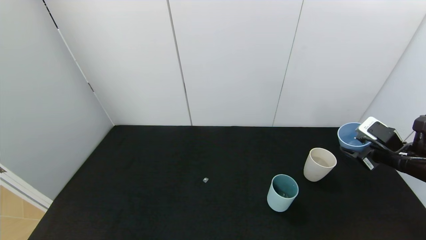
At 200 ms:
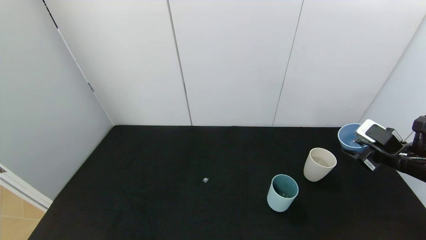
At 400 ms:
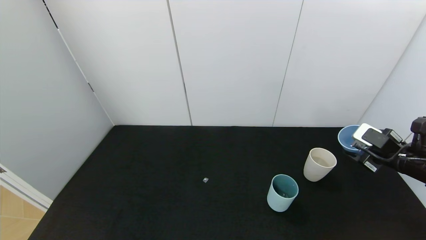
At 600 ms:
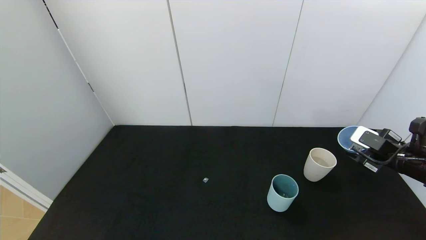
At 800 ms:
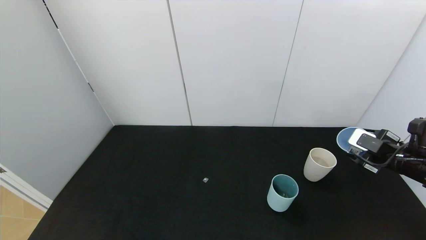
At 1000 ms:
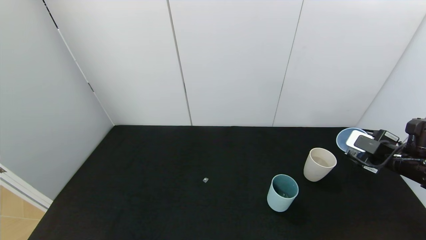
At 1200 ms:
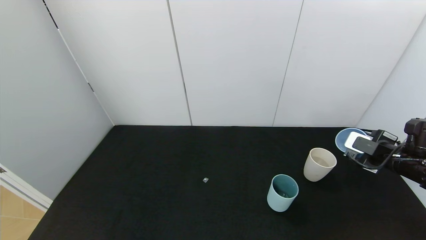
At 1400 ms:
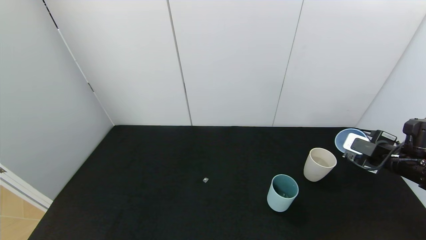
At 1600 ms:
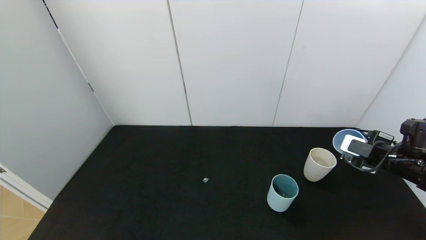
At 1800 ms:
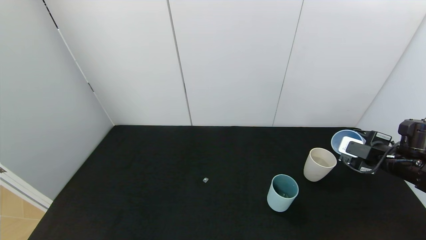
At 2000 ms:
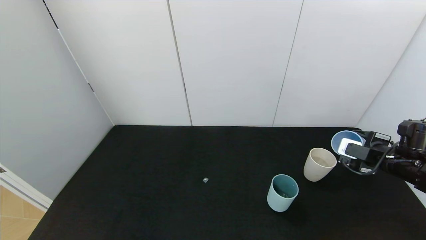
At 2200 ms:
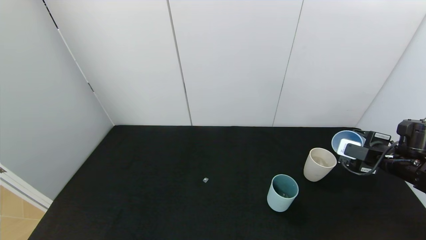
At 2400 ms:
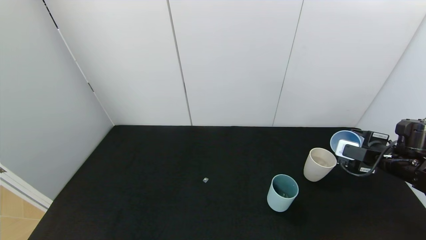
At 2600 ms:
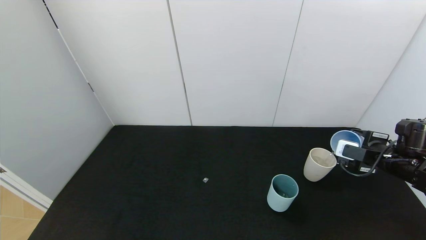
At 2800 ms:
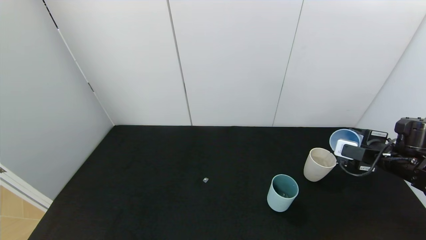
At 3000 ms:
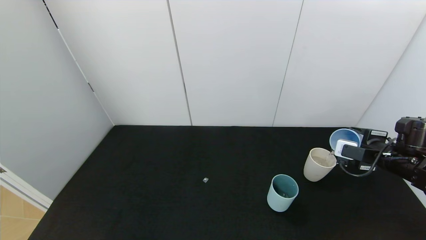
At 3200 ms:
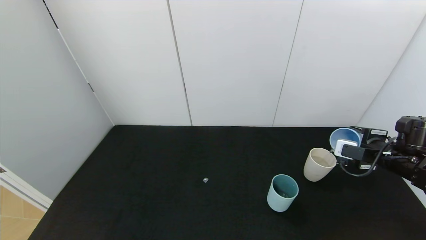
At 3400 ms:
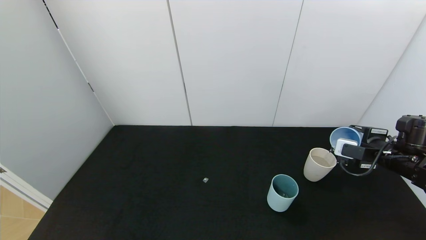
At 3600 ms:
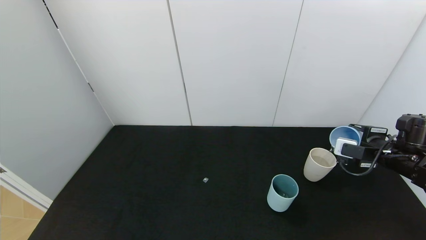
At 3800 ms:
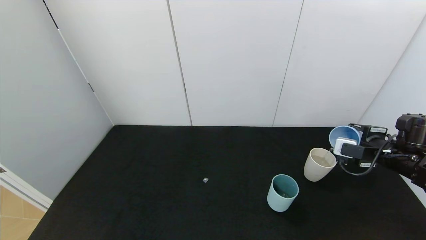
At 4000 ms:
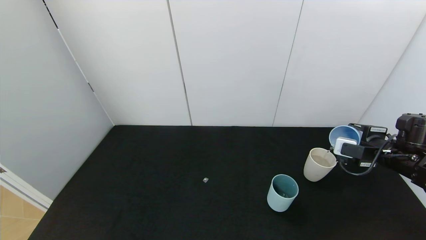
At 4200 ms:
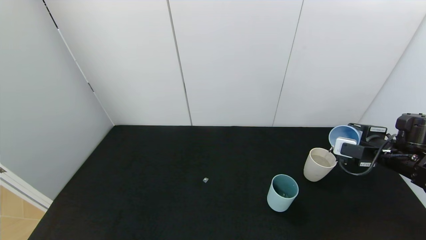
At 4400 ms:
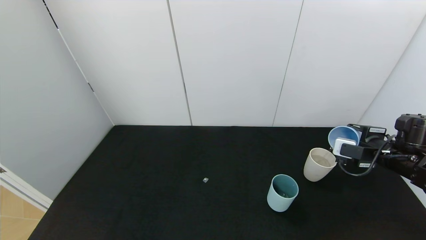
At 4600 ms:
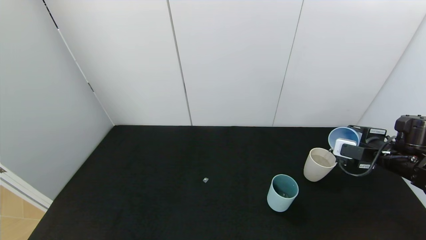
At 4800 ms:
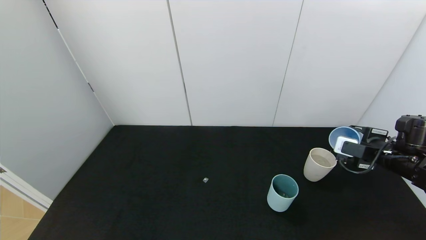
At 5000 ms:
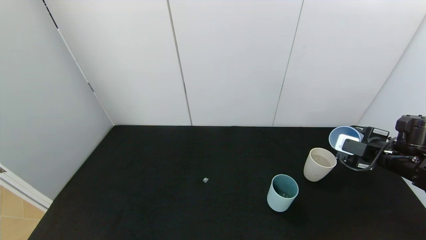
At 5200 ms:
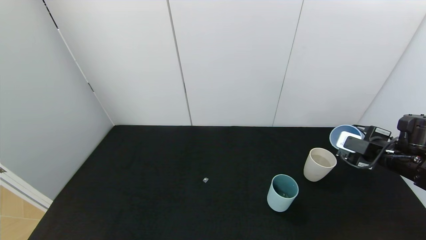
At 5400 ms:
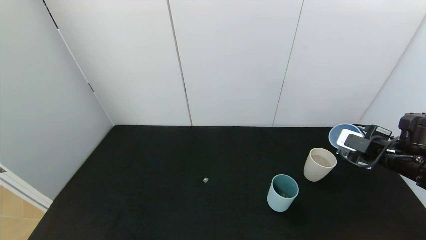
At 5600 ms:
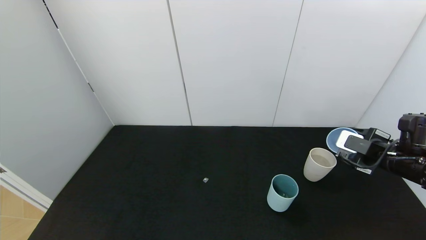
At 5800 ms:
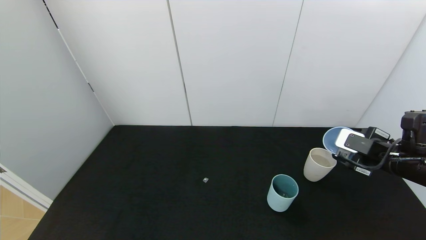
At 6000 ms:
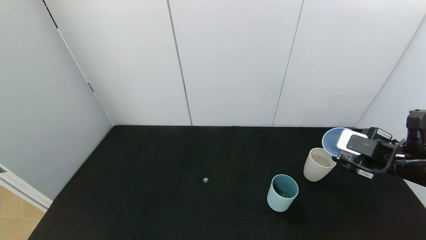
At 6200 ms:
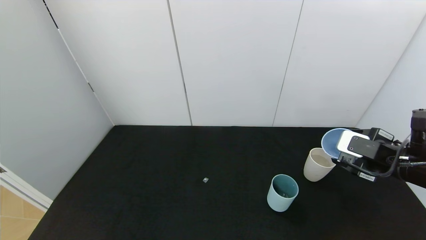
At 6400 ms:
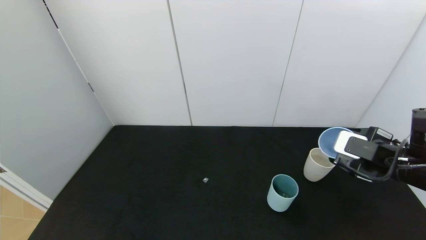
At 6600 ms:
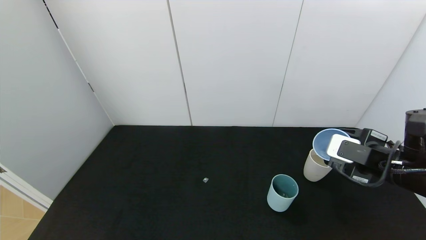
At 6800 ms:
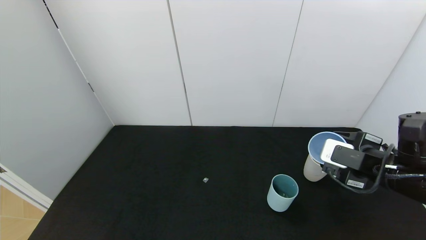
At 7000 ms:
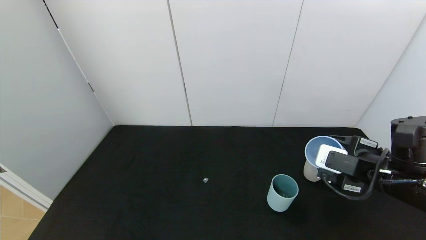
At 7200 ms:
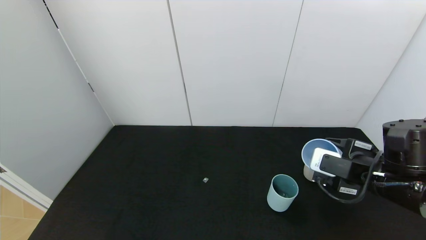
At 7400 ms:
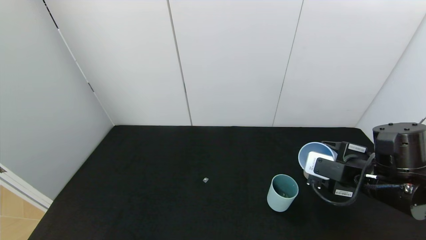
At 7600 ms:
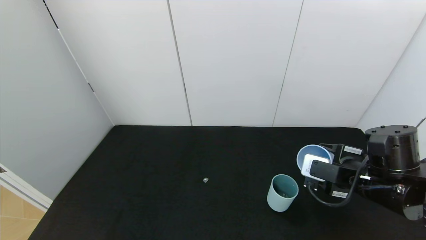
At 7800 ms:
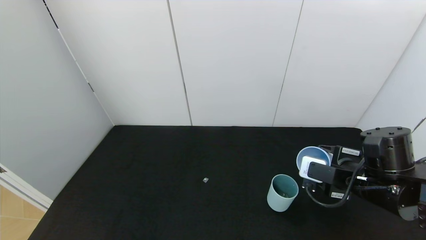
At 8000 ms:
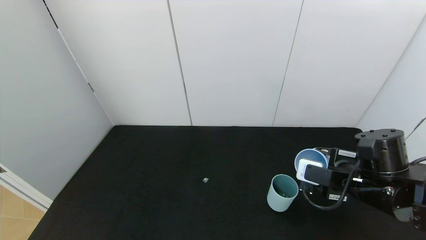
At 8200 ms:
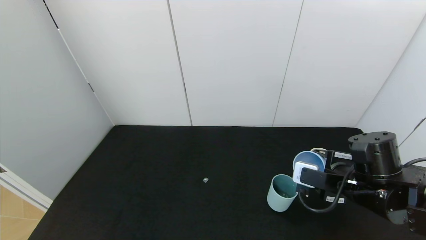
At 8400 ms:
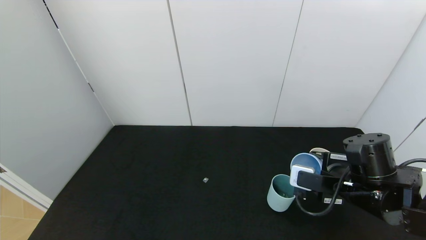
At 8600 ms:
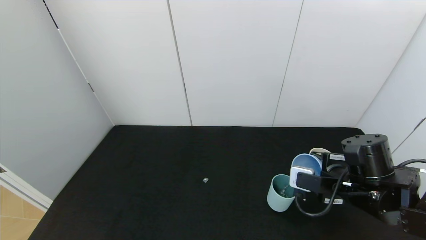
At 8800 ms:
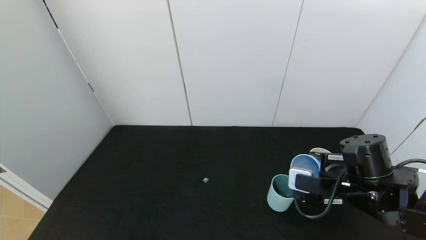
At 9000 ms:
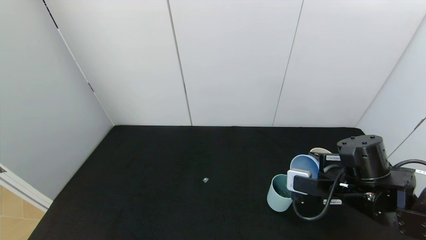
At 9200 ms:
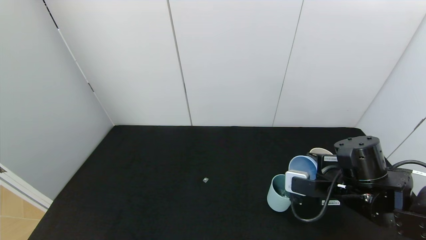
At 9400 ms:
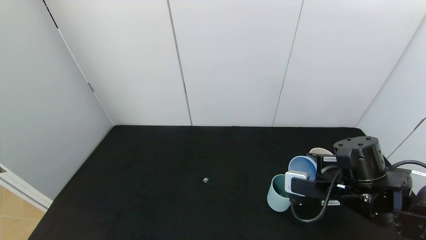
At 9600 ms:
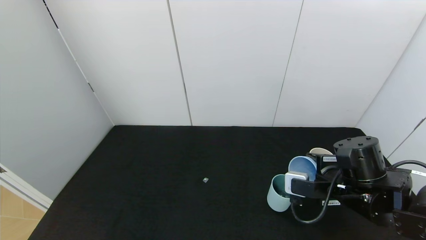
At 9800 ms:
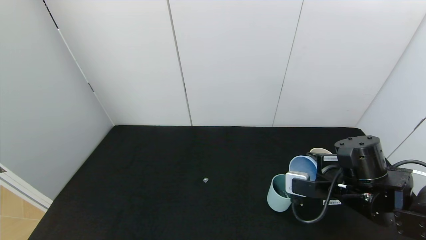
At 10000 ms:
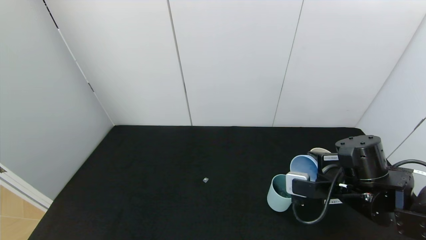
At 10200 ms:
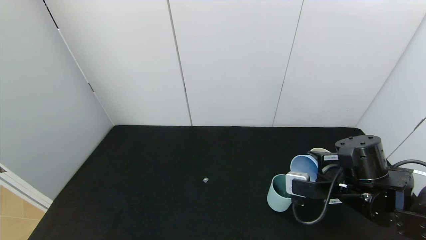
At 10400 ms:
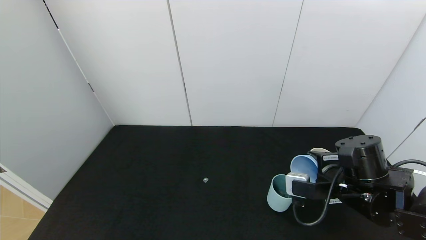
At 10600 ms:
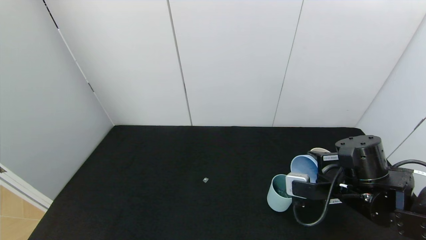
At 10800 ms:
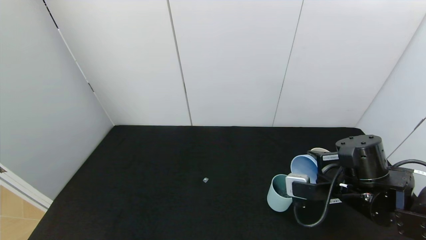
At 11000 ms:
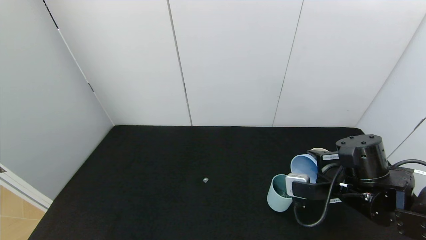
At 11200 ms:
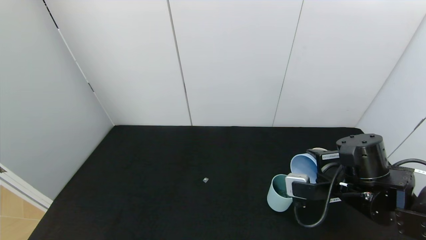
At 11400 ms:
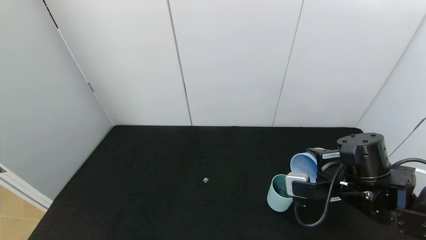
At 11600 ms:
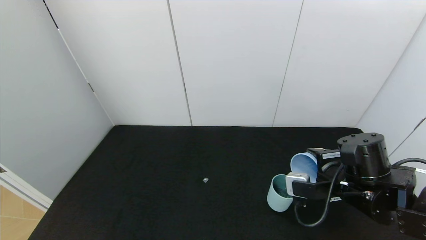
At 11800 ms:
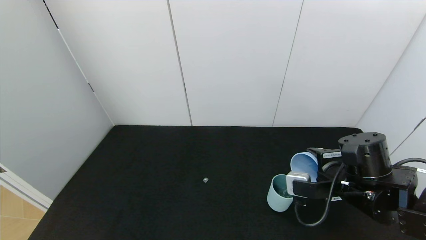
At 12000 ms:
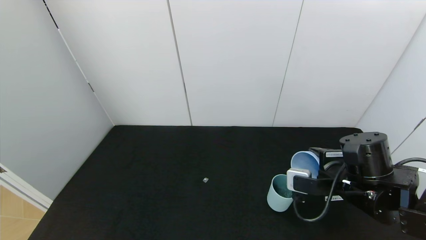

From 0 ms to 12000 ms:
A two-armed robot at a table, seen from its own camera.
Task of the whole recording: use the gripper to pour the water into the other two cups on black table.
Step, from 0 ms to 5600 ms: Pour water from blue cup to white cup with the right gripper.
From 1600 ms to 3000 ms: The grippers move only a little.
From 3000 ms to 4400 ms: The two grippers keep their place.
From 4400 ms to 6000 ms: The right gripper shifts by about 5 cm.
From 6000 ms to 7600 ms: The right gripper shifts roughly 10 cm to the left.
From 7600 ms to 10400 ms: The grippers make only small movements.
From 10400 ms to 12000 ms: Both grippers stay put.

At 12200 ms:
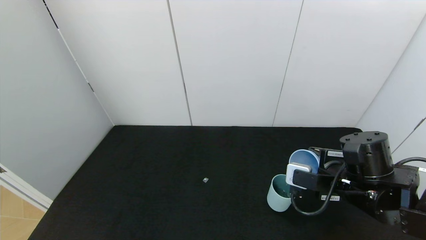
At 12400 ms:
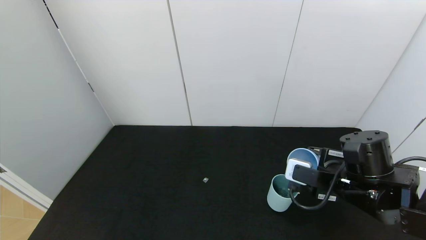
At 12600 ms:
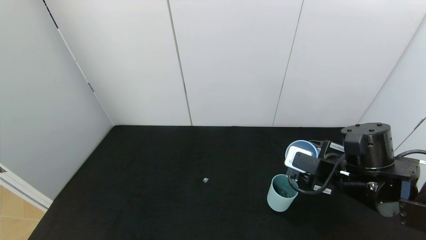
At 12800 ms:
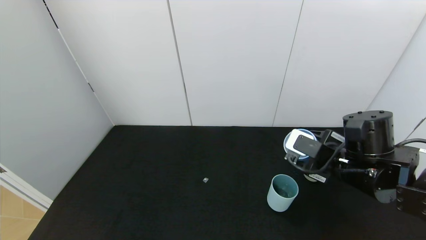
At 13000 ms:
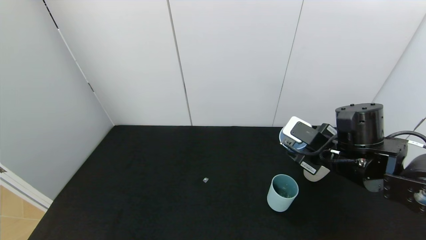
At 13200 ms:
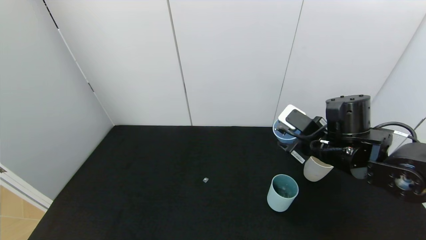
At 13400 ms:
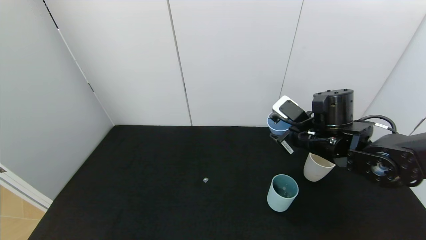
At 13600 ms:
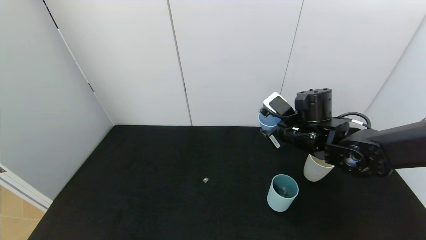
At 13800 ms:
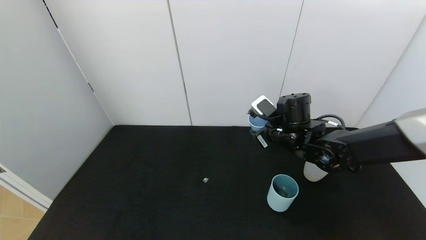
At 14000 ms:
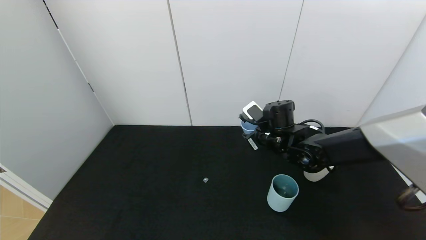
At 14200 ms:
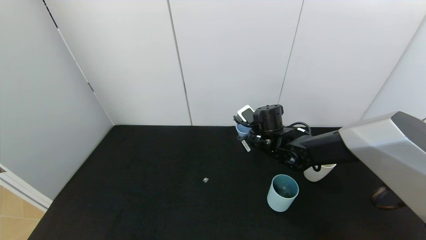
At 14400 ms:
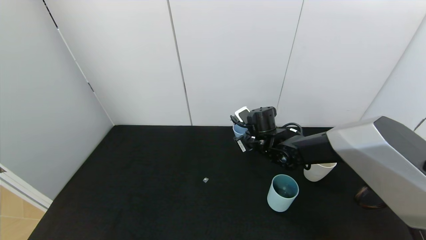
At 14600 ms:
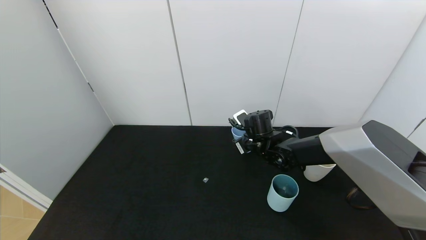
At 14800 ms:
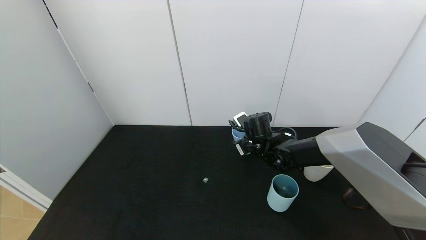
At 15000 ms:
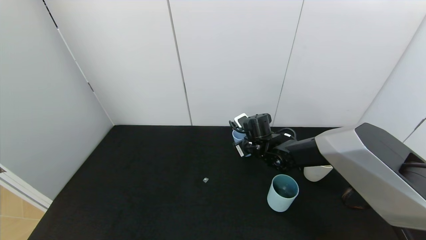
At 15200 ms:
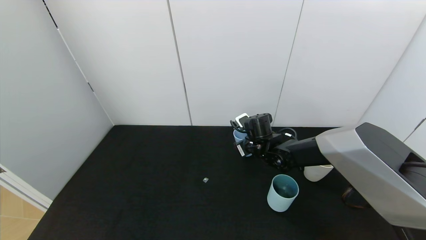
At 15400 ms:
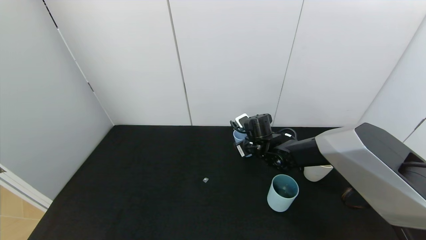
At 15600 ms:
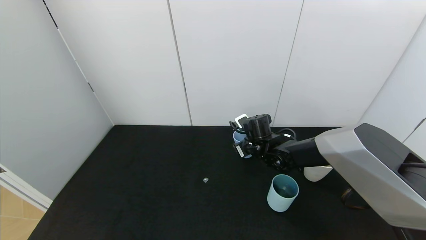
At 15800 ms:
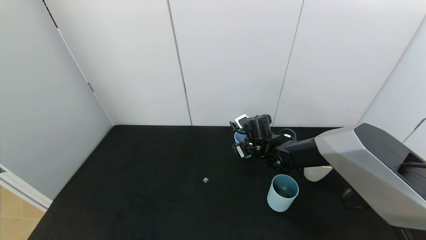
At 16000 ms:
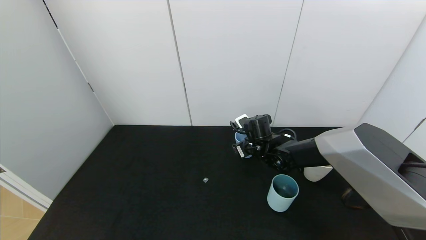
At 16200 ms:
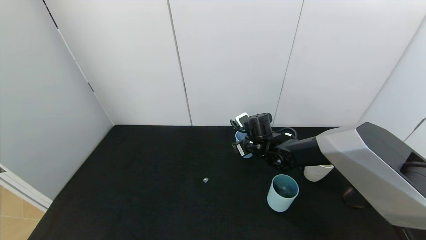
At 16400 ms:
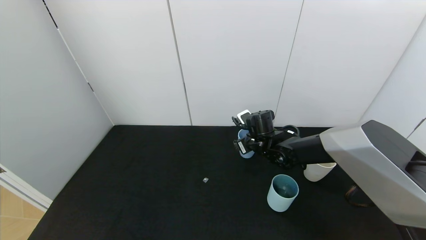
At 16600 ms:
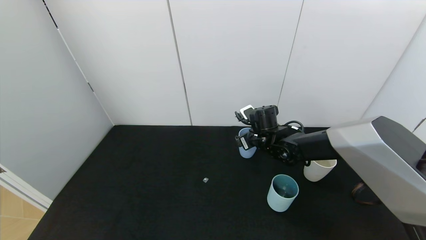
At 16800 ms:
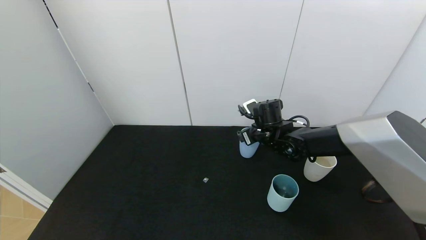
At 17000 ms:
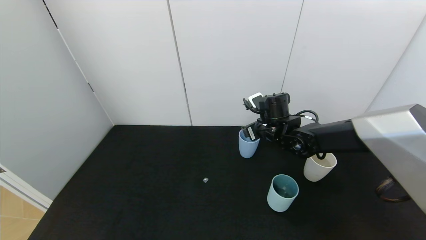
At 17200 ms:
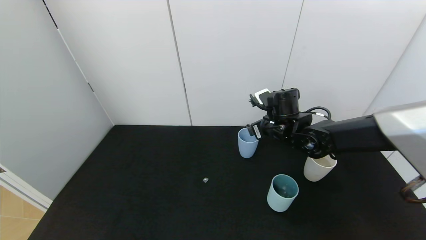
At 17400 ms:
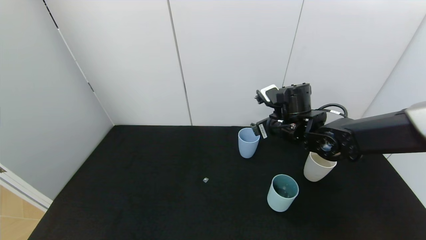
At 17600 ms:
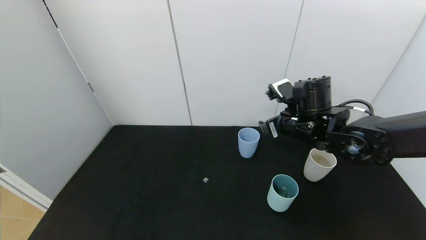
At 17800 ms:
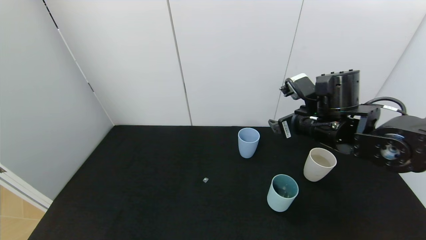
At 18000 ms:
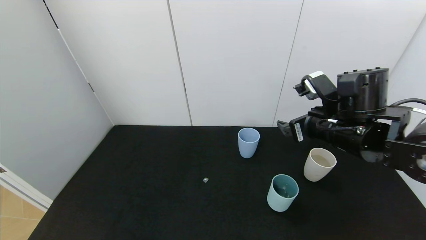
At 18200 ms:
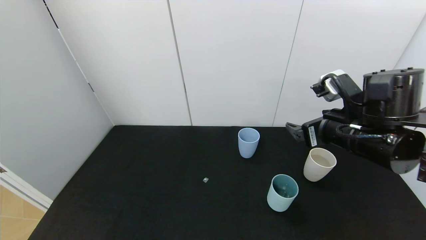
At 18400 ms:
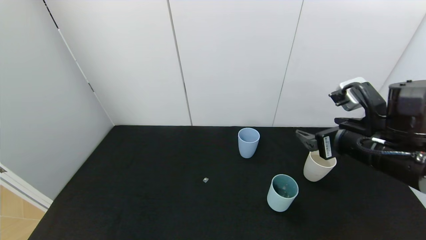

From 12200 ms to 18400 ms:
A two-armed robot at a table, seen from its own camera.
Task of the whole recording: use the gripper to pour the water into the other two cups on black table.
Step, from 12800 ms to 17600 ms: Place the blue cup with the right gripper.
From 12200 ms to 13800 ms: The right gripper travels forward and to the left by some 15 cm.
From 13800 ms to 15400 ms: The right gripper is displaced downward and forward by approximately 10 cm.
From 15400 ms to 16800 ms: The right gripper shifts by about 5 cm, and opens up.
From 16800 ms to 18400 ms: The right gripper heads backward, to the right and upward, covering about 25 cm.
